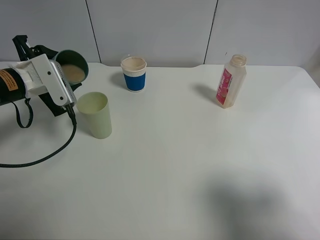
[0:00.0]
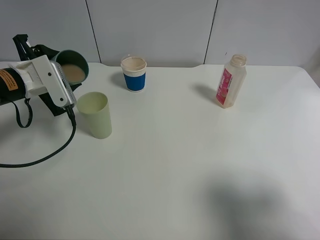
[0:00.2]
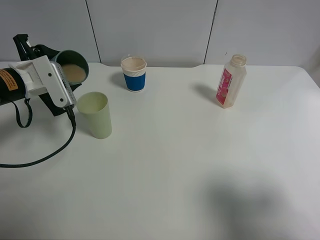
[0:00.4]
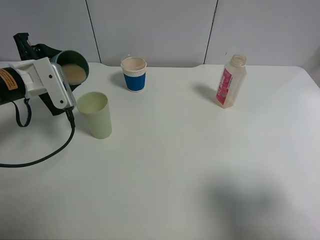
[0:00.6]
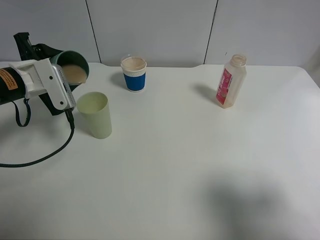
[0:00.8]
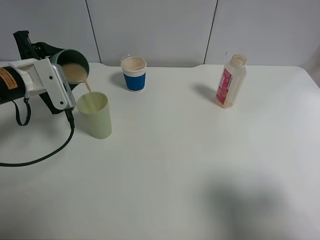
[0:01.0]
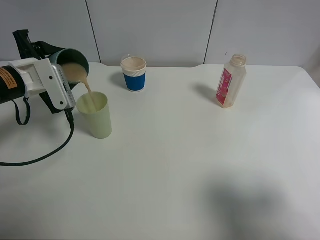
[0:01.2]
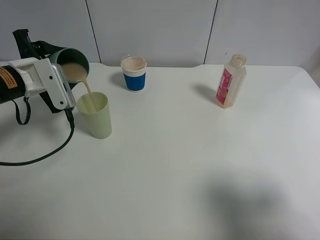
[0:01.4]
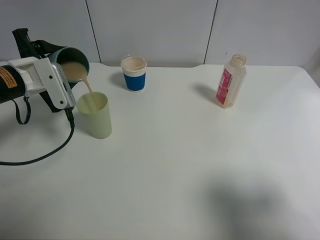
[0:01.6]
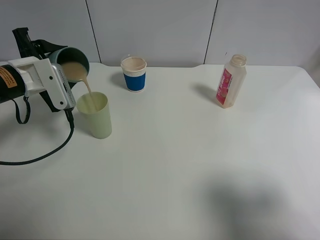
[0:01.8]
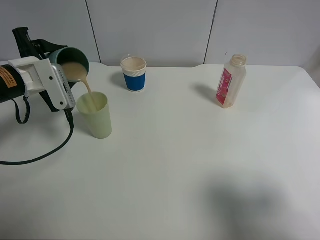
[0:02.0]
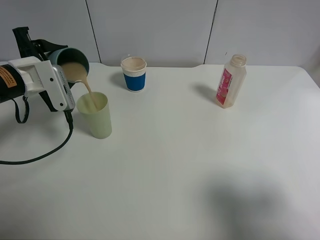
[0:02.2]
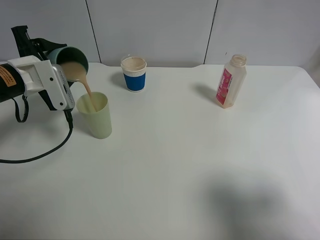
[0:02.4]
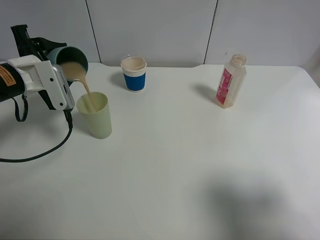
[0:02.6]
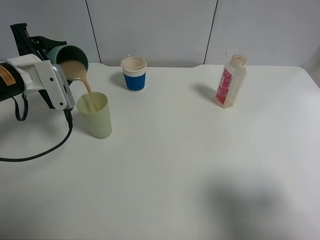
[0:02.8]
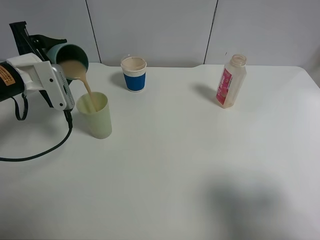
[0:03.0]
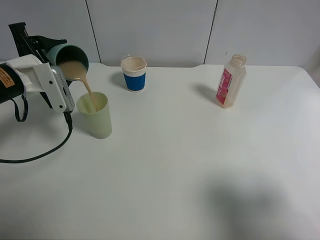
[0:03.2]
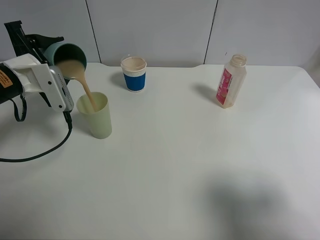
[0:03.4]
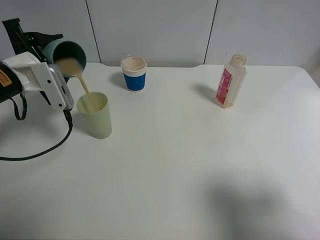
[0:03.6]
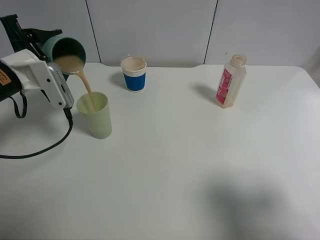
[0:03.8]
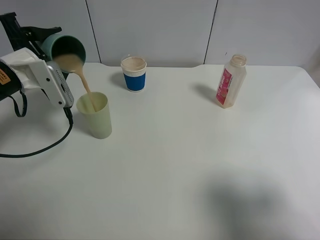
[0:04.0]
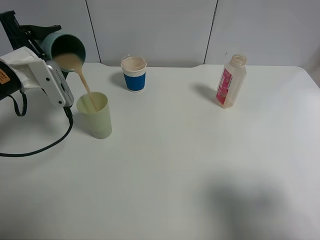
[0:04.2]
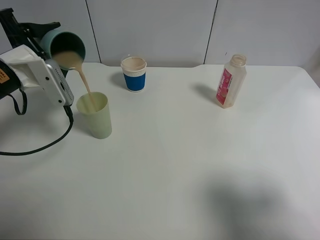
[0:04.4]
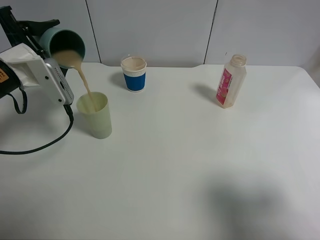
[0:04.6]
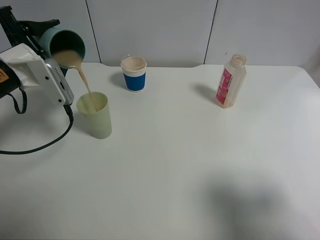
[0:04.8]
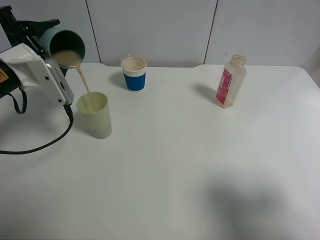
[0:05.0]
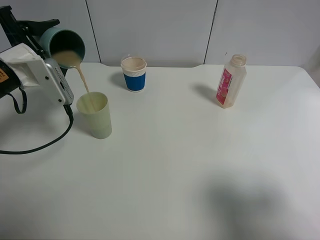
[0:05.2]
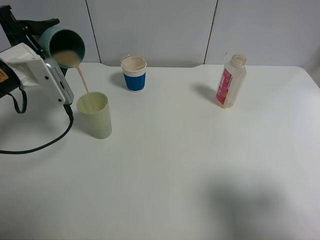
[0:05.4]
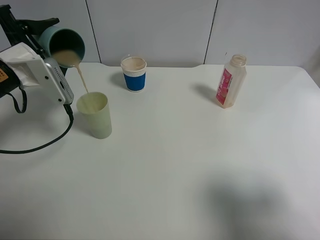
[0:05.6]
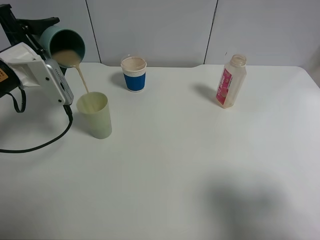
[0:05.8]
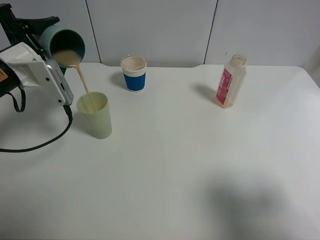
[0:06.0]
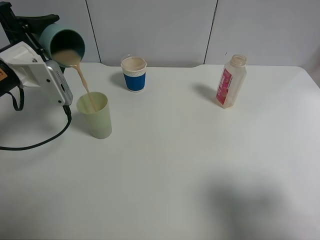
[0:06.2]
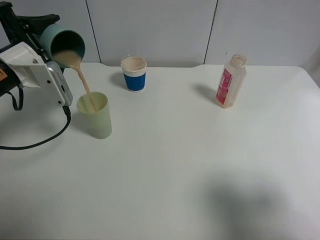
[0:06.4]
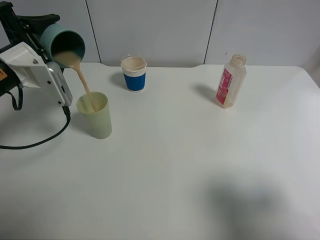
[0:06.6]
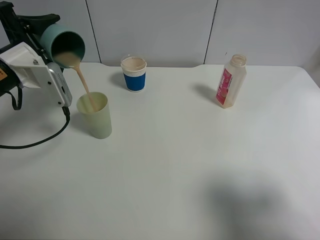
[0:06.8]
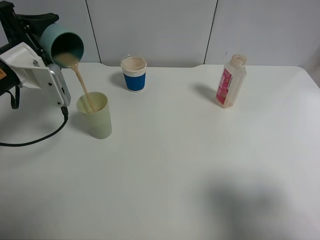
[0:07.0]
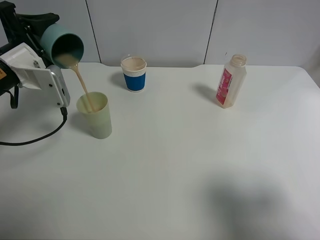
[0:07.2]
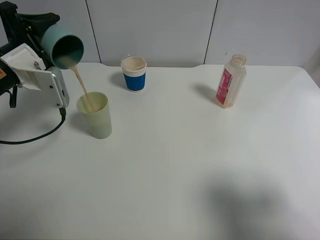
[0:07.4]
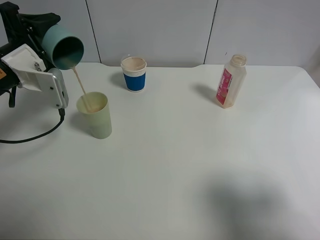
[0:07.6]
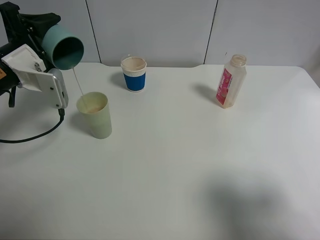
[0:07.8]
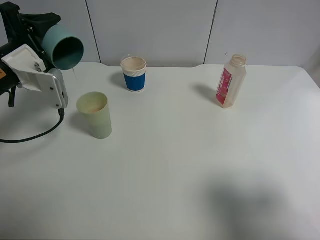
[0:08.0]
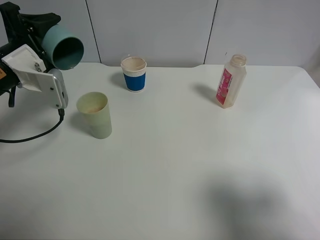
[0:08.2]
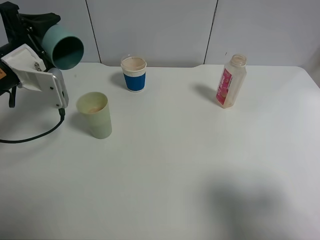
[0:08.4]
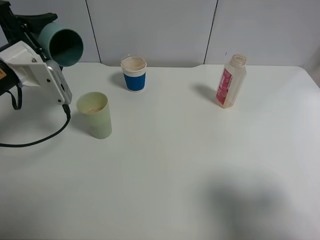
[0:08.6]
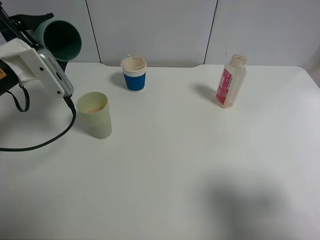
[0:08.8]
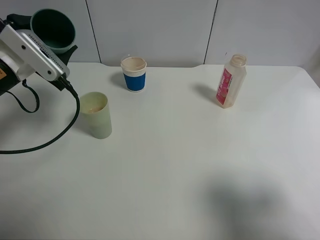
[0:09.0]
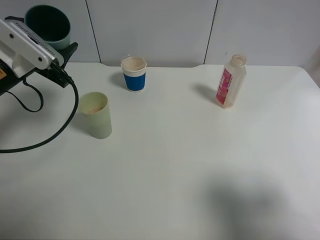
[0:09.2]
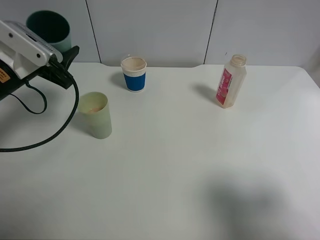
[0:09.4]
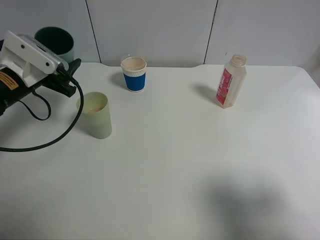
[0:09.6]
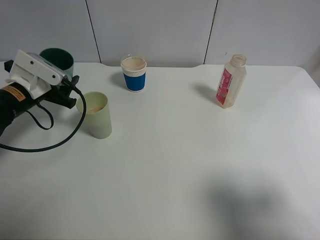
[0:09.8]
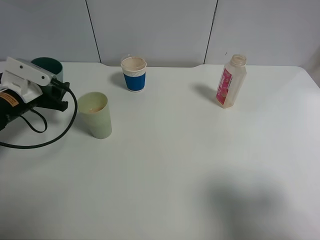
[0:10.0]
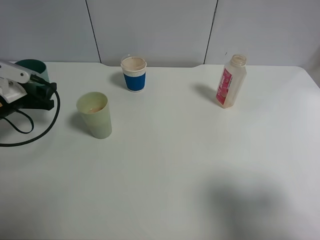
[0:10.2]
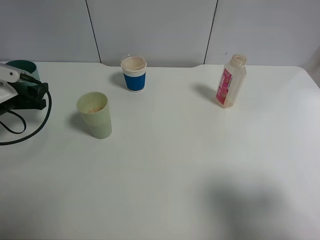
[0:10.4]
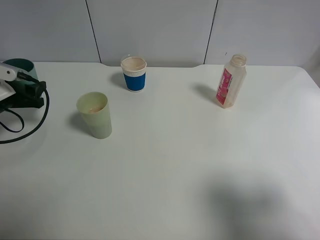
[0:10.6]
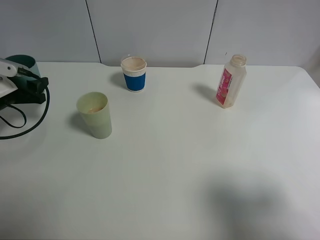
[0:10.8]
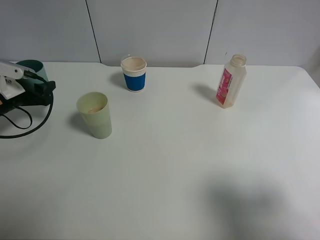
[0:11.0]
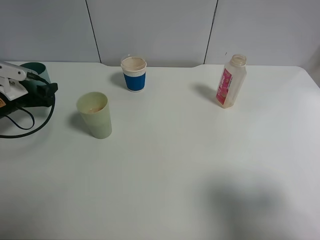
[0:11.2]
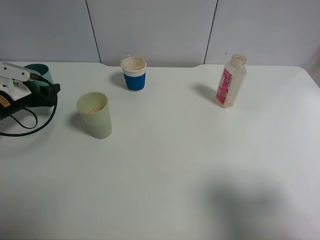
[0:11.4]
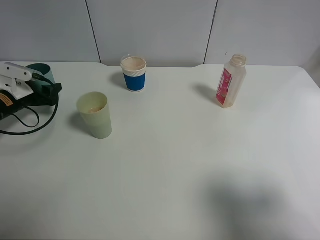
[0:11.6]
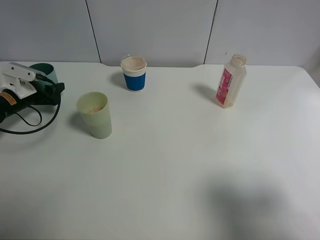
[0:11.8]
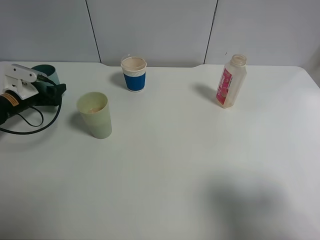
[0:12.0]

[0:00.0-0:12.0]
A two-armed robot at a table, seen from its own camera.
Task of the whole recording: use a clamp to hold the bottle of the drink, pour the beverage into a random cup, then clamp the cup containing the drink and pour the drink into another random cup.
Step, 0:00.0 to 0:08.8: Pour the drink into the green plastic cup with left gripper.
0:00.0 to 0:03.0: The grippers move only a little.
0:03.0 to 0:06.0: The grippers stay close to where they were, moving slightly.
0:06.0 to 0:07.6: The grippers make only small movements.
0:09.0 to 0:10.4: The left gripper heads downward and to the left, covering roughly 10 cm.
0:10.4 to 0:12.0: The left gripper shifts some 10 cm forward and downward.

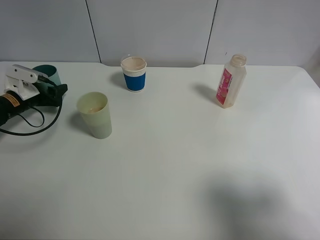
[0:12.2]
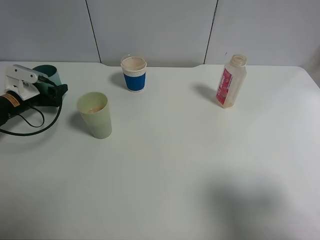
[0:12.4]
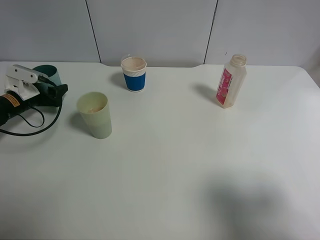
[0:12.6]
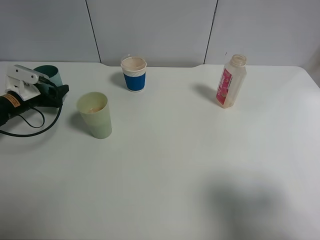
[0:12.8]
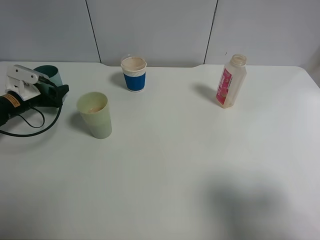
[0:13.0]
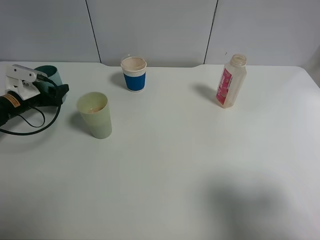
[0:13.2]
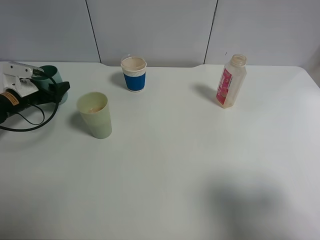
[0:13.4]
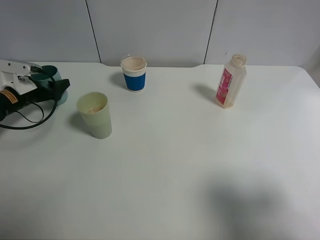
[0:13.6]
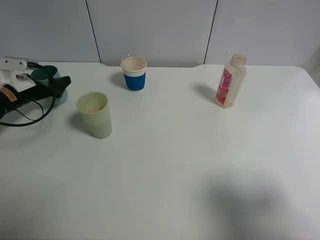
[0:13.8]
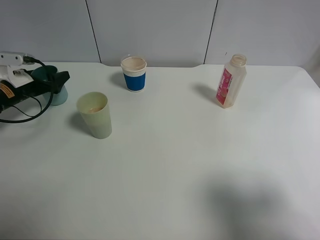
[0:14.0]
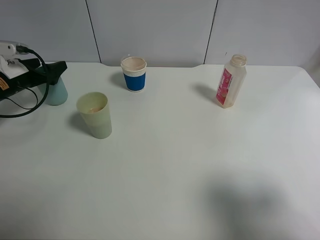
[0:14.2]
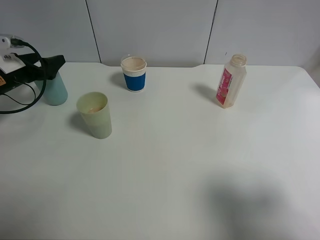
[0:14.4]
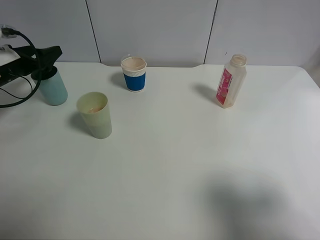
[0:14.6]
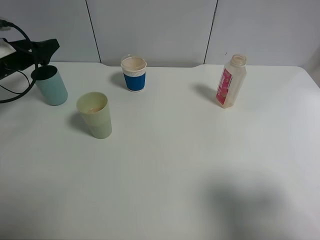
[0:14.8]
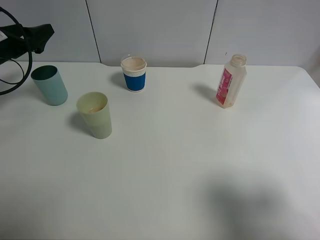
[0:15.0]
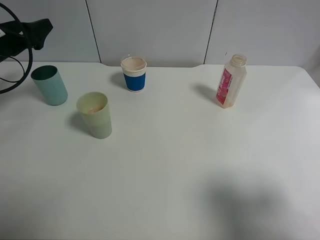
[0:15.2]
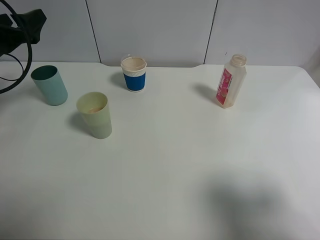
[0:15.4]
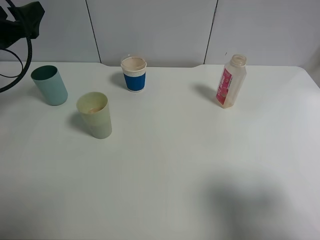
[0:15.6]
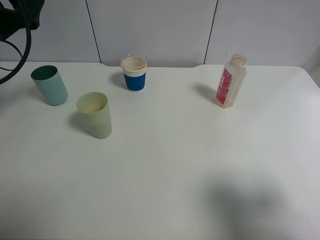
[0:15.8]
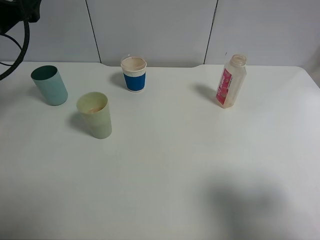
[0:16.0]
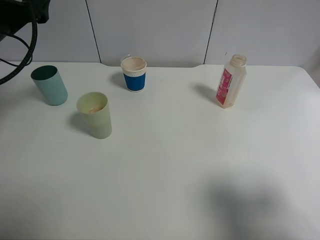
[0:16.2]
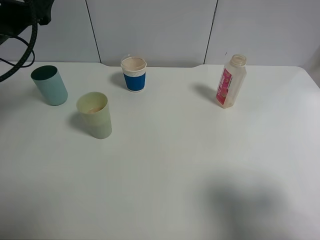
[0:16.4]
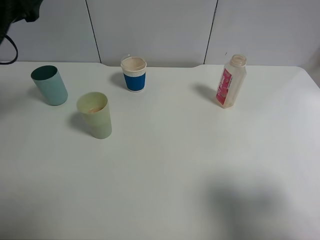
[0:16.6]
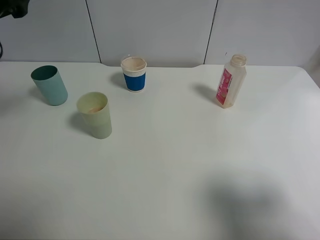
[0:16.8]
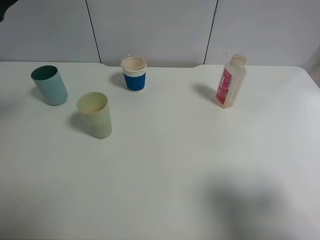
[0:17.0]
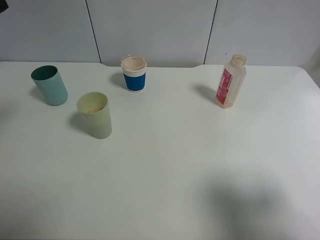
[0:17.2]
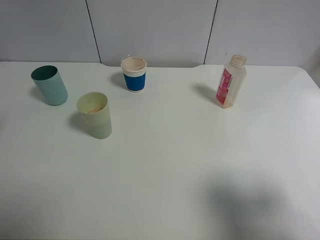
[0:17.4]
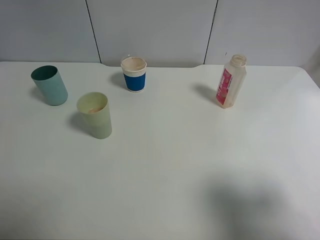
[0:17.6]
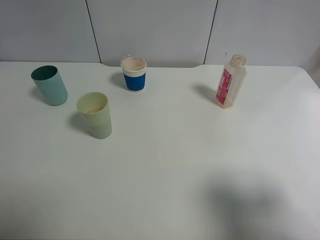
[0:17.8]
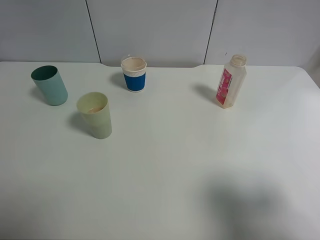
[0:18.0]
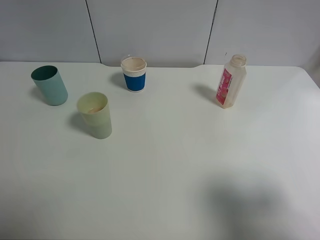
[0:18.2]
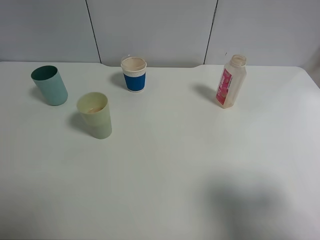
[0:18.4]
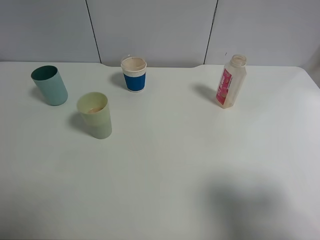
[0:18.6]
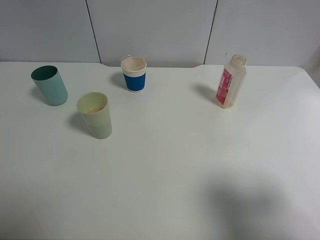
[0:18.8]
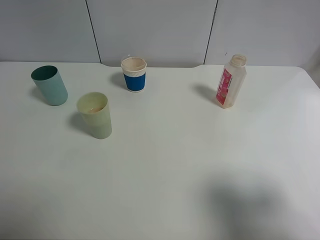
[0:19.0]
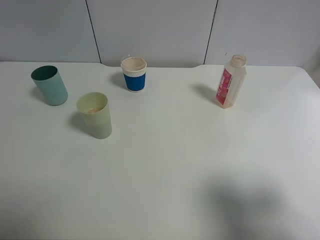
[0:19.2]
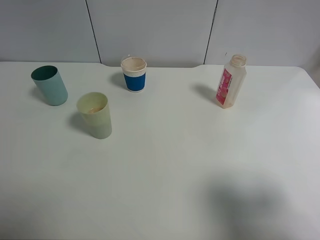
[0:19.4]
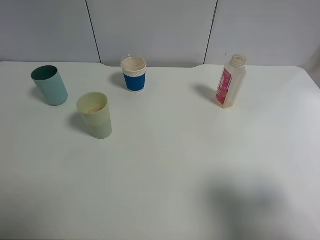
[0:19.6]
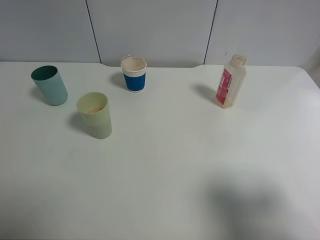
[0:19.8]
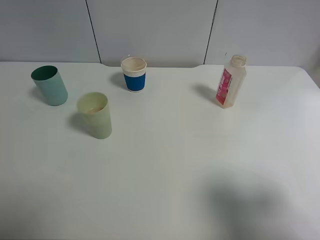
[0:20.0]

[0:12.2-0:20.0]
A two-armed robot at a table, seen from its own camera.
Task of the whole recording: use a clamp to hold the bottle of the drink, pour the beverage into a random cup, then clamp the cup containing the drink and pour the drink into another random cup.
0:12.2 to 0:13.8: The left gripper opens up.
0:13.8 to 0:15.4: The left gripper is displaced upward by about 15 cm.
0:15.4 to 0:16.8: The left gripper moves upward, backward and to the right, about 15 cm.
0:16.8 to 0:18.4: The left gripper moves backward, about 20 cm.

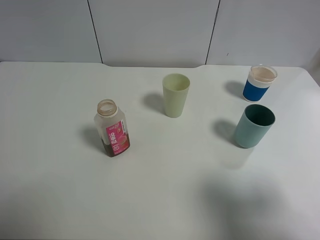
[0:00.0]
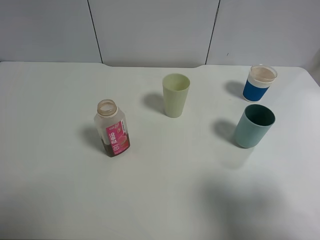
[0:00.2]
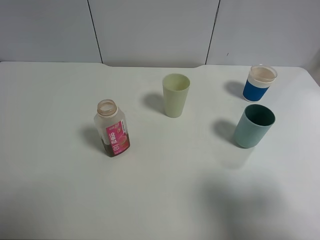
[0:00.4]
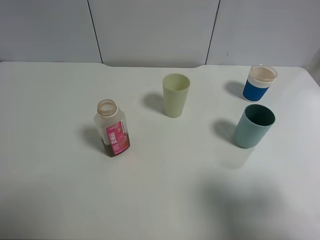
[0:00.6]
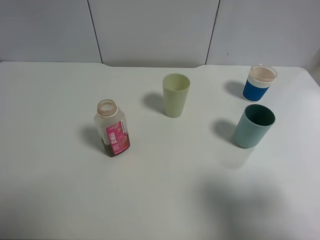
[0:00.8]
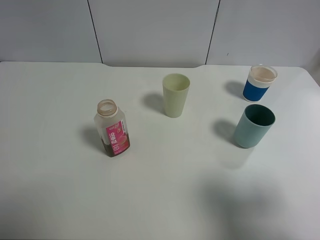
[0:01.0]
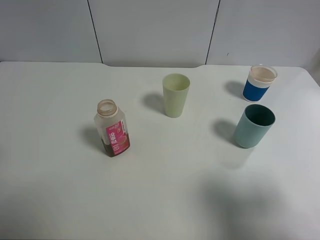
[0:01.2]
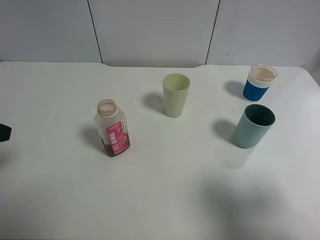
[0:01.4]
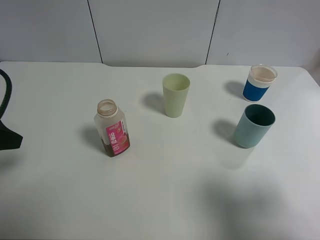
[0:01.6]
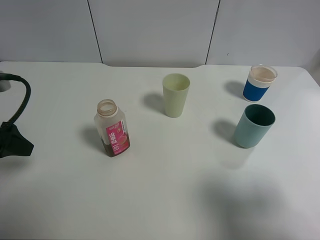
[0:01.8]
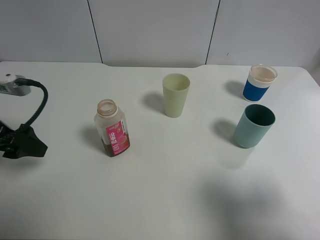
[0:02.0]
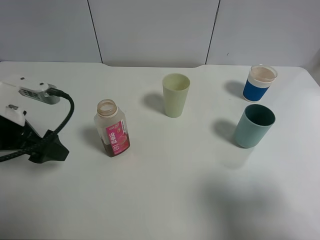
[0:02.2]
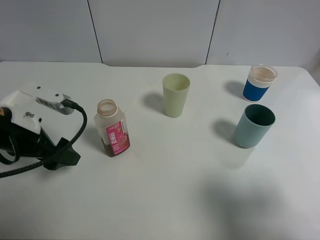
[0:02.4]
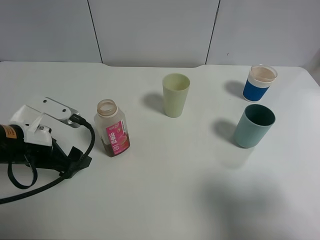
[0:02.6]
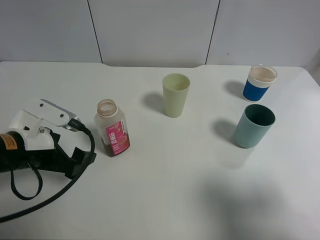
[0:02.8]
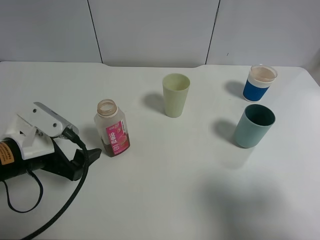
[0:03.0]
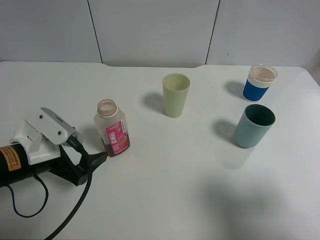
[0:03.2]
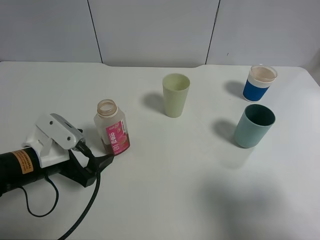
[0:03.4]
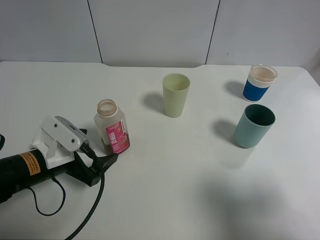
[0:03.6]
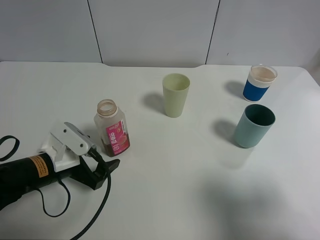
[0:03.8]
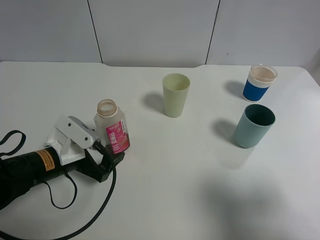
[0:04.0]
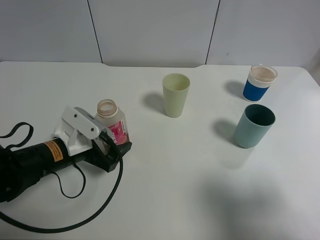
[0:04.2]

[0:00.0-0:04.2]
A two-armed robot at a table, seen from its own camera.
Task of the whole recording: use a clamp to hold the bottle of the drink, pour the beverage into a random cup, then clamp the cup containing the drink and pour the drink into another random cup.
0:01.4 to 0:02.8: The left gripper goes approximately 15 cm downward and to the right.
0:02.8 to 0:04.2: The left gripper is displaced downward by approximately 5 cm.
